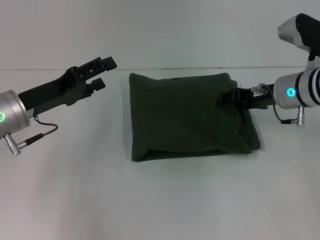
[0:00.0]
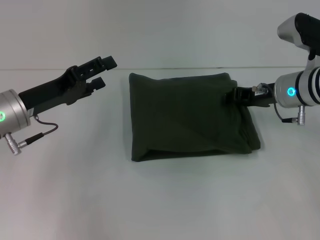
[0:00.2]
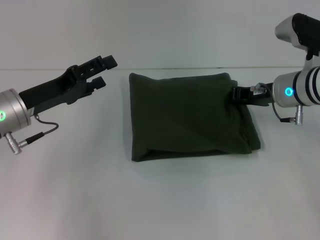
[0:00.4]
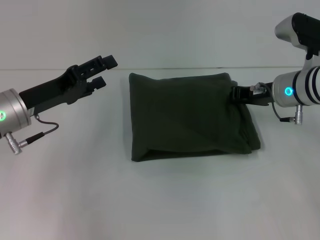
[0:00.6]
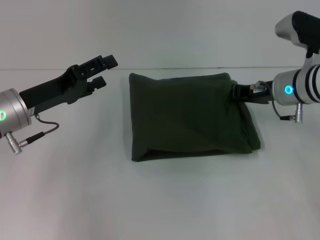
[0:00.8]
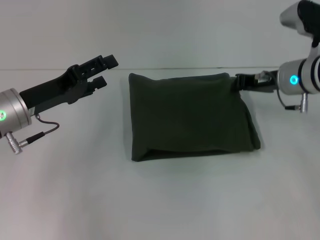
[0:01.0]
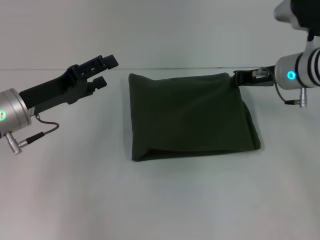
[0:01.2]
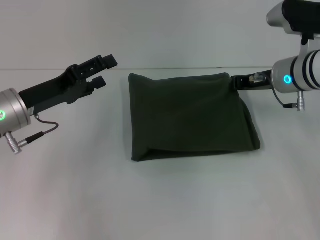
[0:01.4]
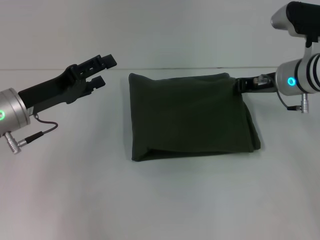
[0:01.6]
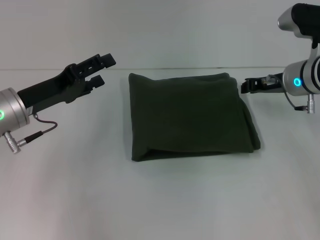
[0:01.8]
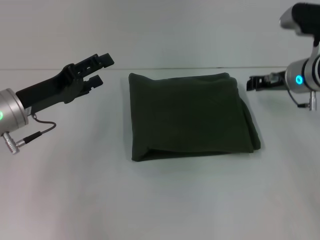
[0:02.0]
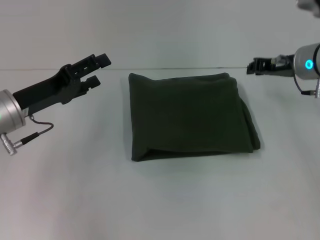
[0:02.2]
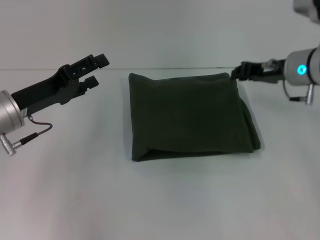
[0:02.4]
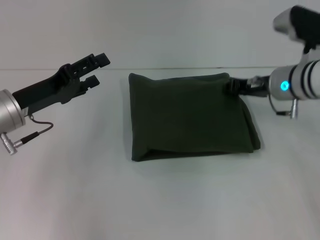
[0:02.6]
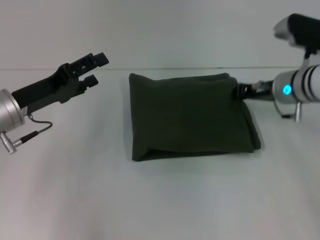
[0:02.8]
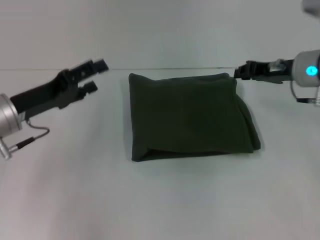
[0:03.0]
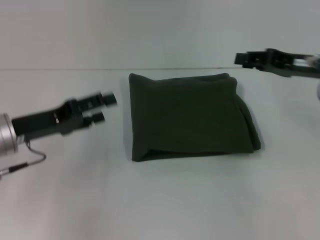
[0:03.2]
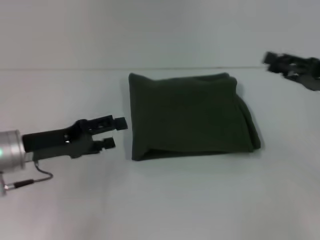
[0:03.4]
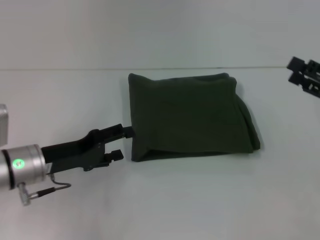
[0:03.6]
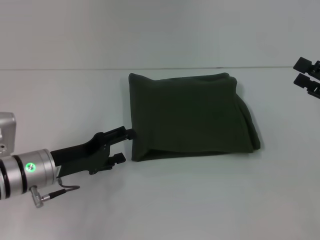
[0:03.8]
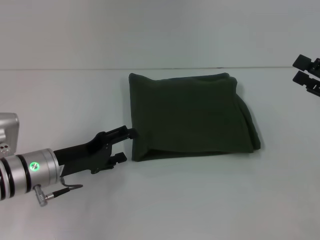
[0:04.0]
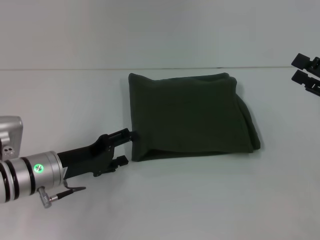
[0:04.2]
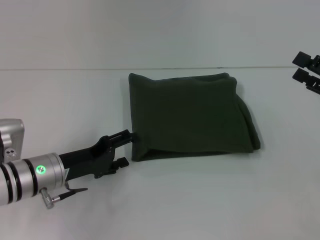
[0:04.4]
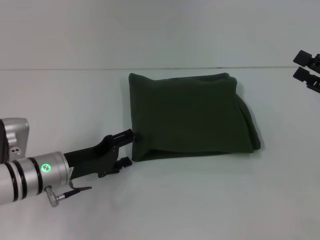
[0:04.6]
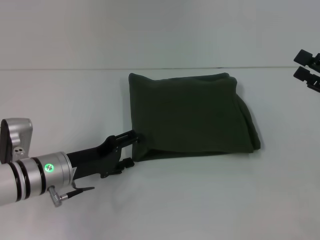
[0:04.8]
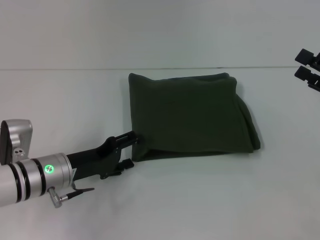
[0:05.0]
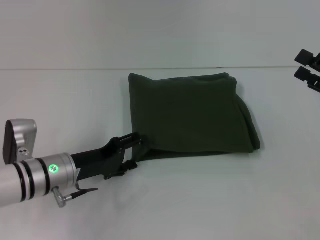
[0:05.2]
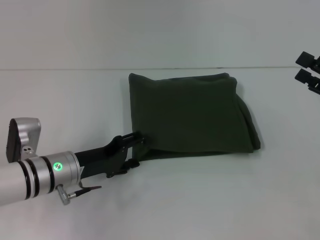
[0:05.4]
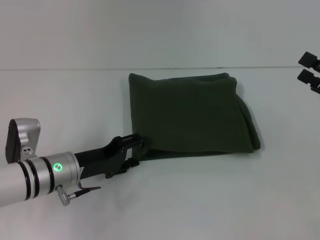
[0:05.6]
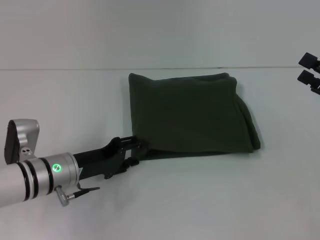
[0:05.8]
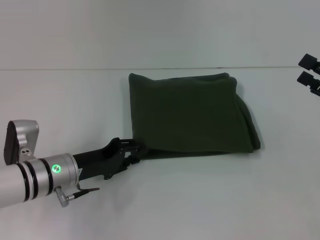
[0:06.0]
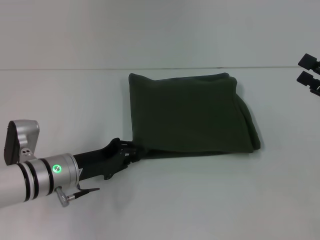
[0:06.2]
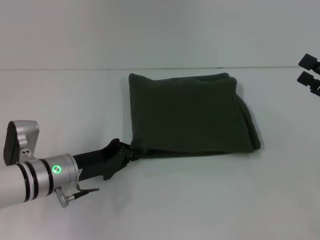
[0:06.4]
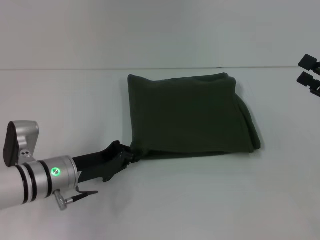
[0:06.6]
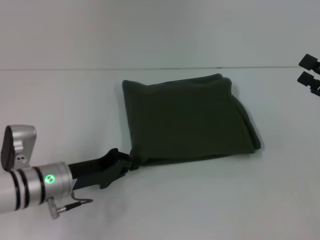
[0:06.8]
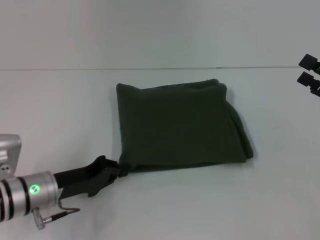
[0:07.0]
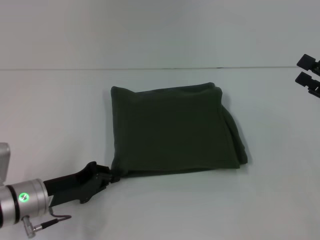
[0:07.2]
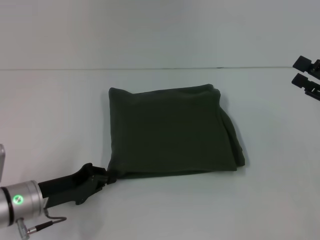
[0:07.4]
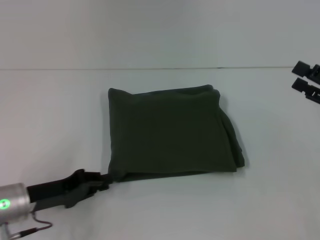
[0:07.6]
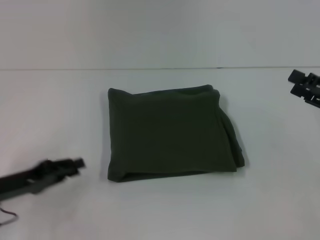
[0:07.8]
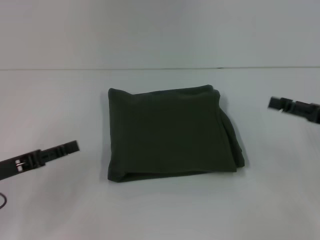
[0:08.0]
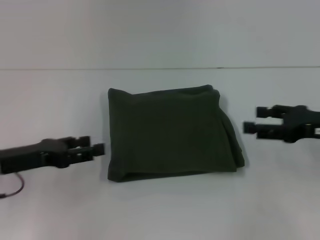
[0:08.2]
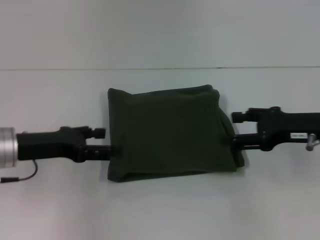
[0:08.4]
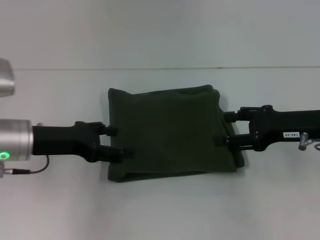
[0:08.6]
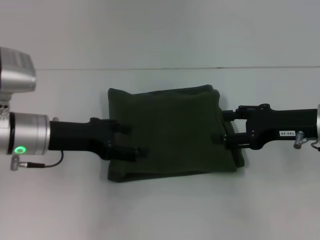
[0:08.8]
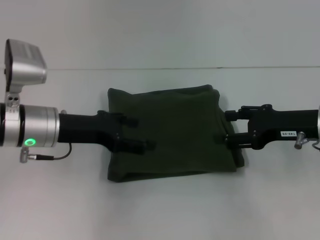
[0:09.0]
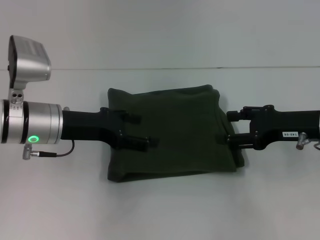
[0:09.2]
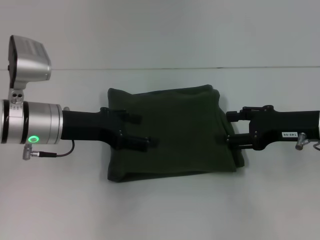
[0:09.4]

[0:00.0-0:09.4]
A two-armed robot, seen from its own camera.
0:00.0 to 0:01.6: The right gripper closes up.
0:01.6 to 0:03.2: The right gripper goes approximately 10 cm to the right and backward.
0:03.2 to 0:04.8: The left gripper is displaced downward and to the right by some 10 cm. The right gripper heads backward and to the right, covering roughly 10 cm, and opens.
0:04.8 to 0:06.2: The left gripper closes up.
0:06.2 to 0:07.8: The left gripper travels to the left and backward by some 10 cm, and closes.
0:07.8 to 0:09.4: The left gripper moves to the right, forward and upward, some 15 cm, and opens its fingers, while the right gripper shifts some 10 cm to the left.
